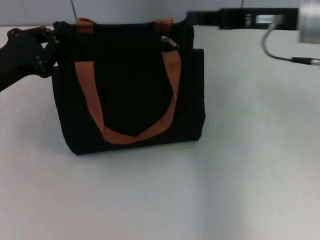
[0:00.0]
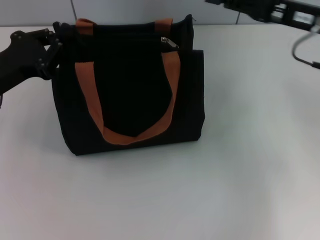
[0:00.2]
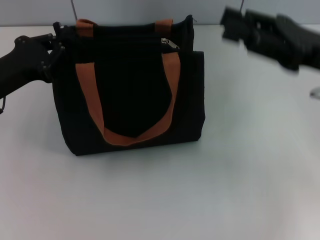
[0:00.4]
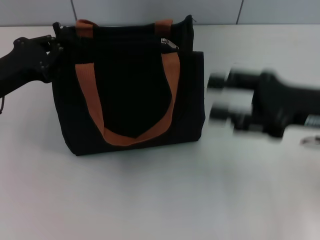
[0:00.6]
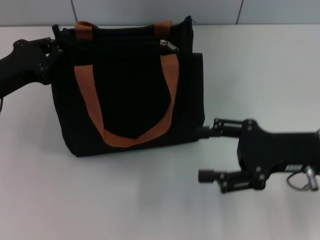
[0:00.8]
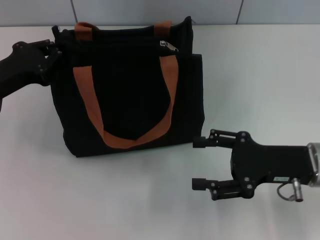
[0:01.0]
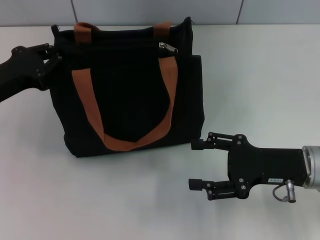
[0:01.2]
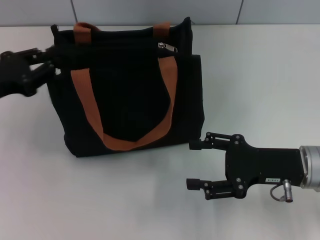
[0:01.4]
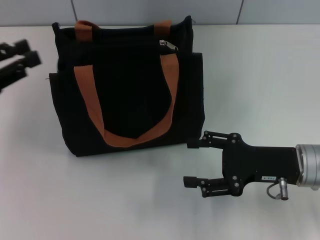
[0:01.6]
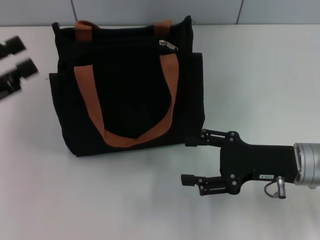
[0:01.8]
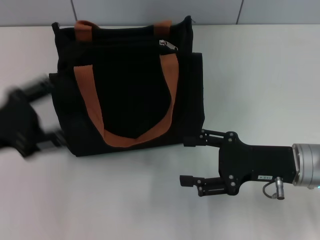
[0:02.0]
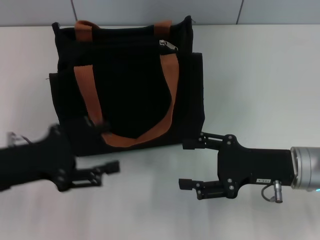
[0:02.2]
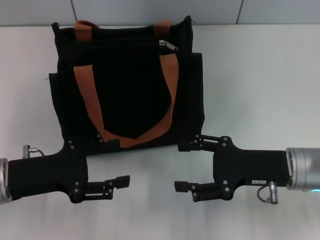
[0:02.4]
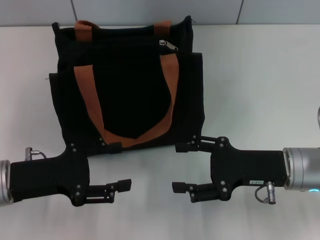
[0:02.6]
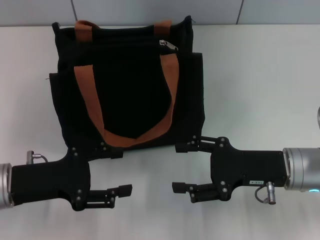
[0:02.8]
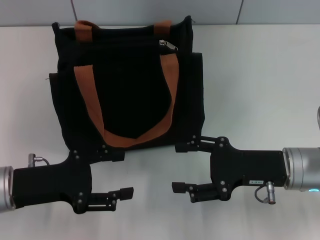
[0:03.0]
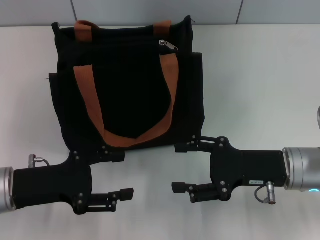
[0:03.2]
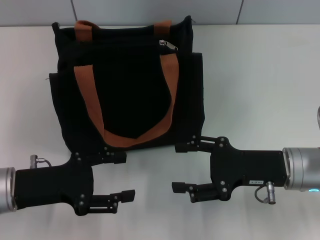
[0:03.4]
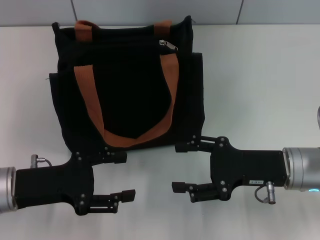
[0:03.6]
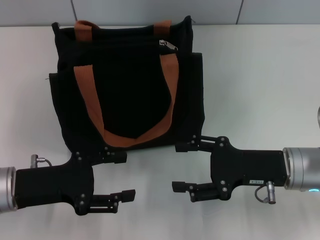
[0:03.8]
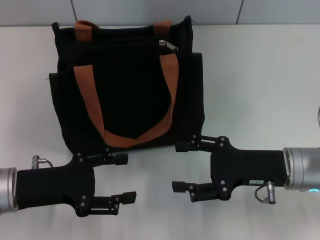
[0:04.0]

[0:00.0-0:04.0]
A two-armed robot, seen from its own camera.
Step, 0:00.4 to 0:01.6: Grab the zipper with your left hand.
0:00.0 to 0:01.4: The right gripper heads downward and backward, covering some 20 cm, and opens up.
0:01.4 to 0:02.6: The left gripper moves backward, to the right and downward, roughly 10 cm, and opens.
0:02.6 to 0:04.0: Neither gripper changes place.
